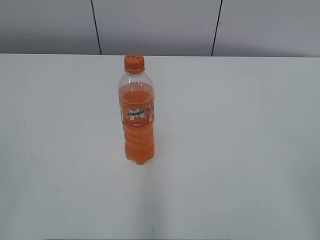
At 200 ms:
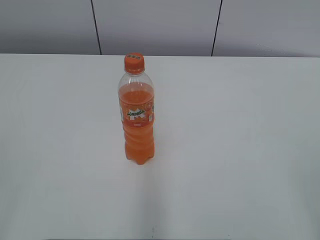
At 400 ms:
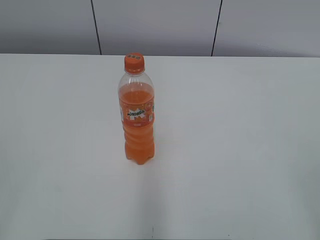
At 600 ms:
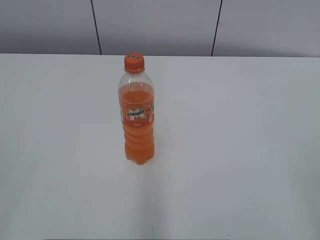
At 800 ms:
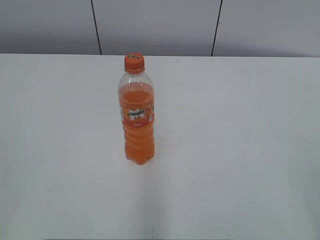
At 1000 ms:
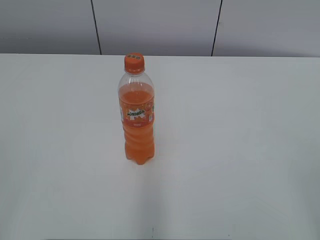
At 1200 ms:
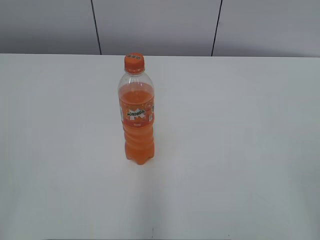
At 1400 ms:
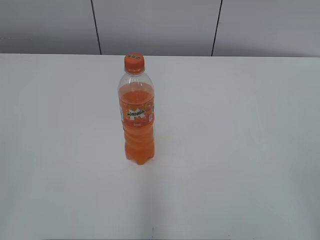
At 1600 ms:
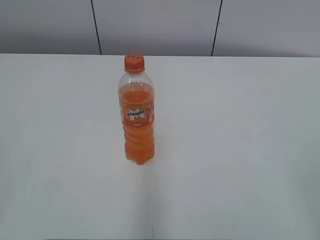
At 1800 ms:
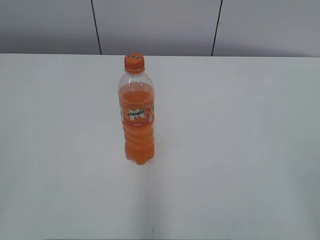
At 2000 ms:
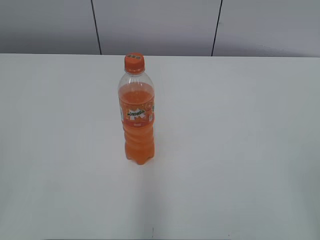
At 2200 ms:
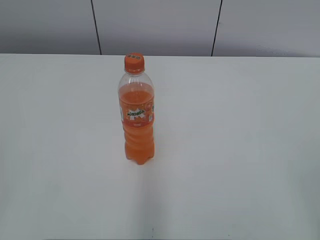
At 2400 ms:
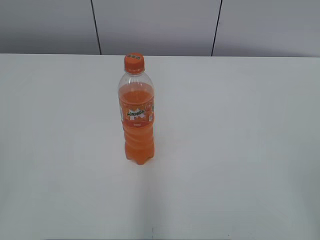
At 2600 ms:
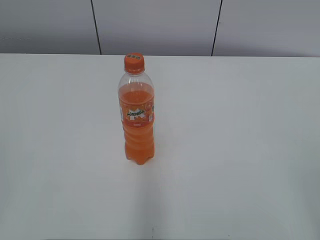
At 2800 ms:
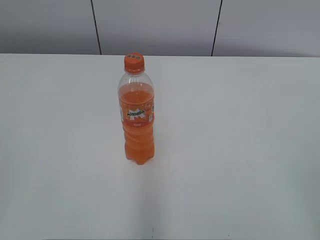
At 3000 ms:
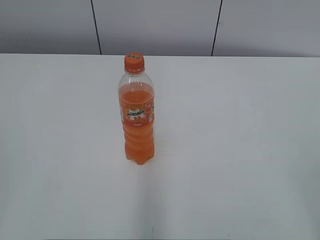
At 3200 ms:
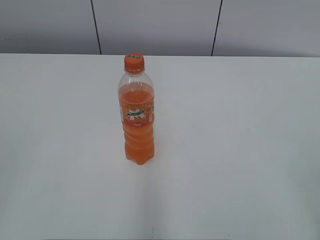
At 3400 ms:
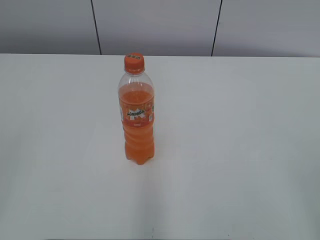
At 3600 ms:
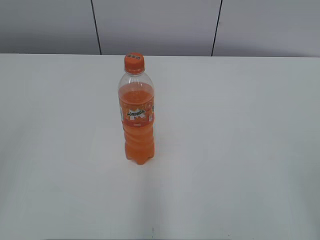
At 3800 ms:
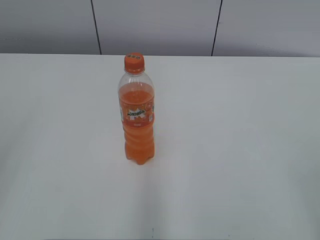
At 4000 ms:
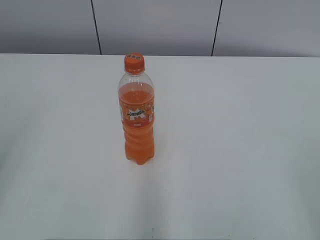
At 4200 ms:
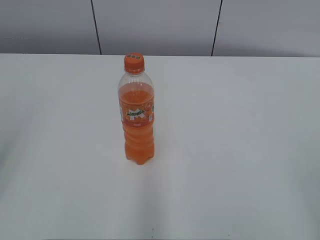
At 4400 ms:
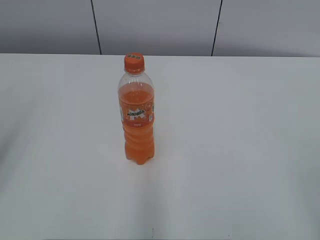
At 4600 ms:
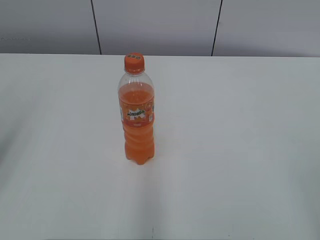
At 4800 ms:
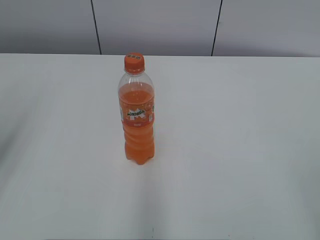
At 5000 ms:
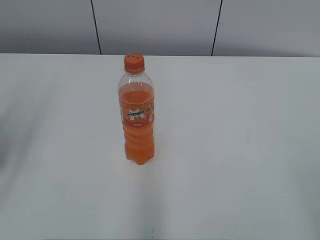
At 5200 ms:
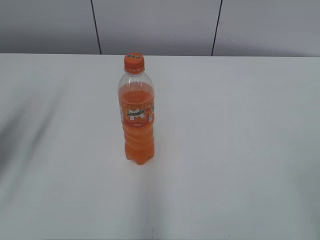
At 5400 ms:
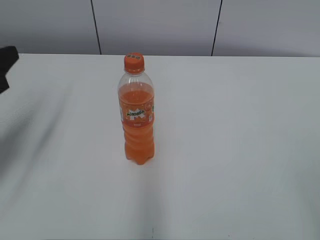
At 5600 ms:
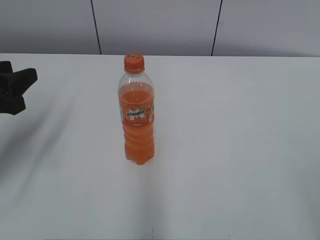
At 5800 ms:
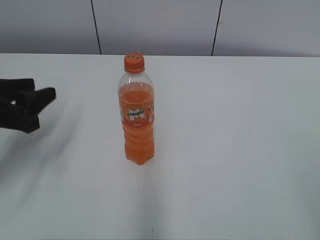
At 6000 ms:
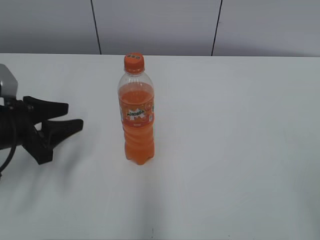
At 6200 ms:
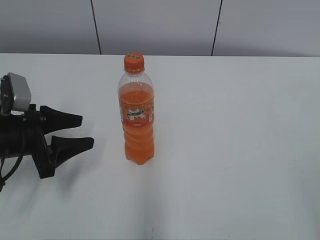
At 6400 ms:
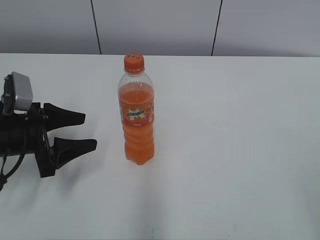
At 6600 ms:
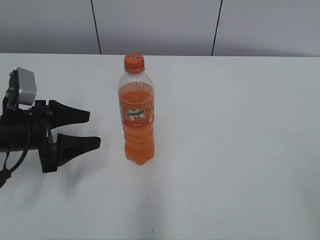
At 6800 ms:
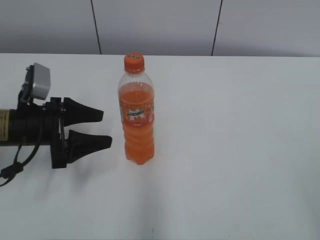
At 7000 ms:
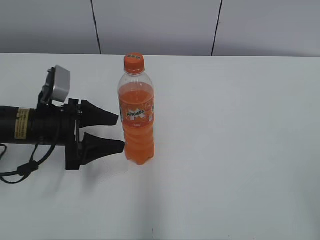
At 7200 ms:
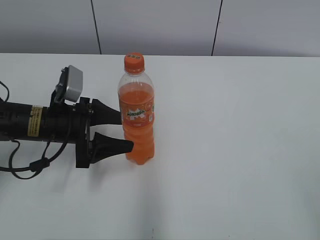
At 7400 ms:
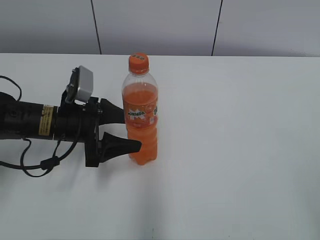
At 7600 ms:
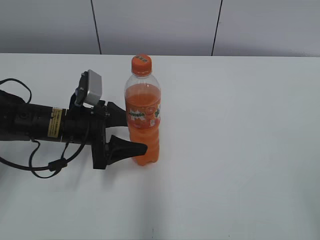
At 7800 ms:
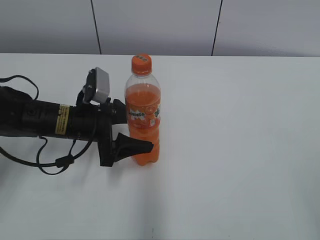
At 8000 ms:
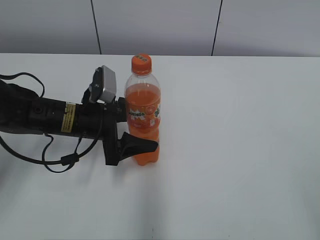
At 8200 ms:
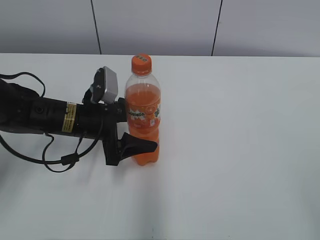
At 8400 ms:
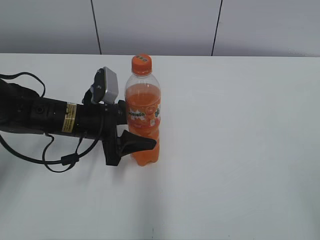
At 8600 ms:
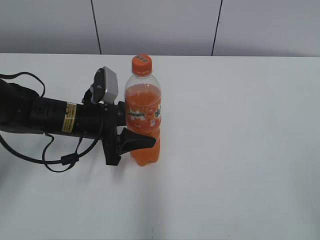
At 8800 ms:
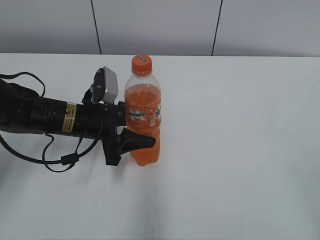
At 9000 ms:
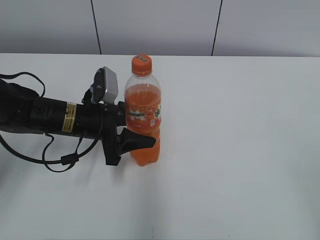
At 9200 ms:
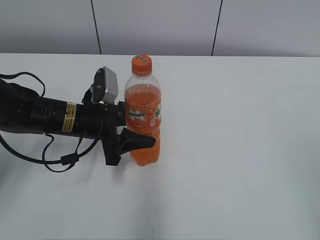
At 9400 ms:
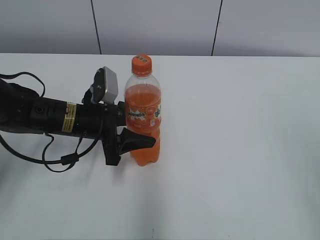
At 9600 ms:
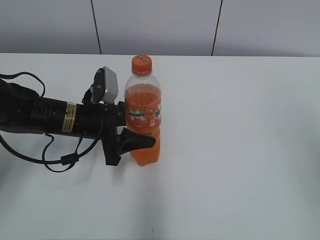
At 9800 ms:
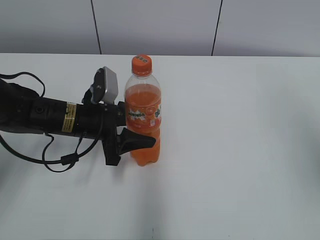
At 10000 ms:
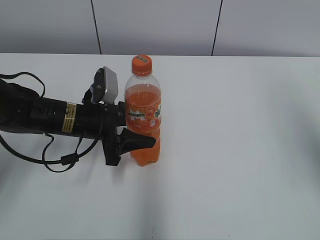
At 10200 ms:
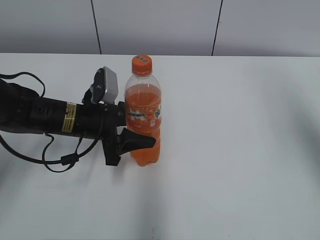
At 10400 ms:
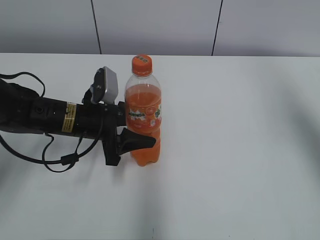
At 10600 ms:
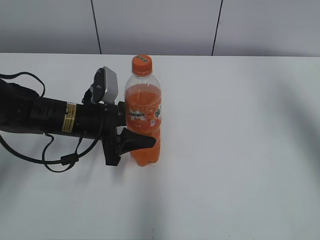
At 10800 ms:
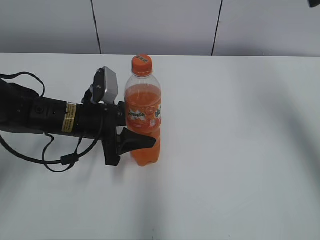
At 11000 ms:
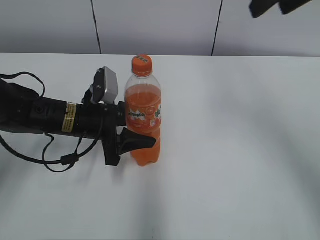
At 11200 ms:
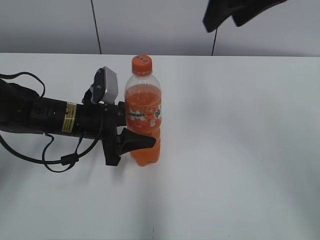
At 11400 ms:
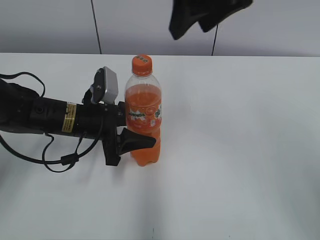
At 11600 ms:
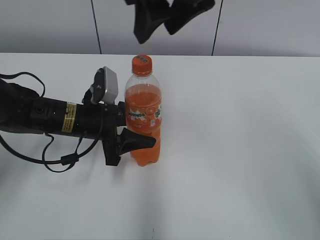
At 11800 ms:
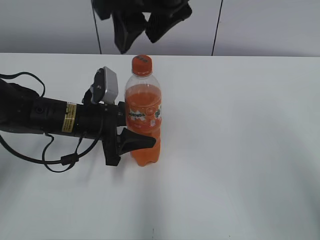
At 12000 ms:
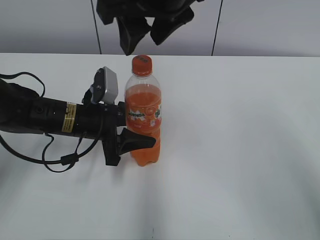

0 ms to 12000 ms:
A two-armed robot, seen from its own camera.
Step, 0 ms to 8400 ms: Grab the Mirinda with the left hand.
4400 ms to 6000 ms: The left gripper shifts about 20 cm downward and forward.
6000 ms to 7600 ms: The left gripper is displaced to the right and forward by some 10 cm, and opens.
7600 ms to 9000 ms: The left gripper closes.
9000 ms to 10400 ms: The right gripper is displaced forward by about 30 cm, and closes up.
10400 ms to 12000 ms: The right gripper heads to the left, covering approximately 30 cm.

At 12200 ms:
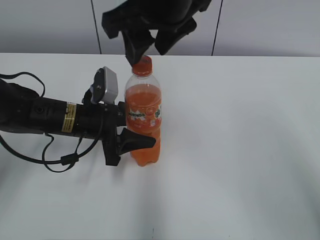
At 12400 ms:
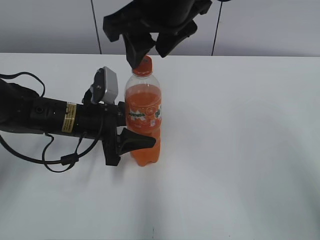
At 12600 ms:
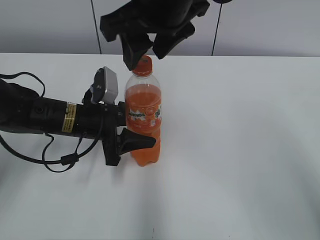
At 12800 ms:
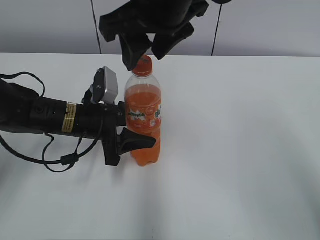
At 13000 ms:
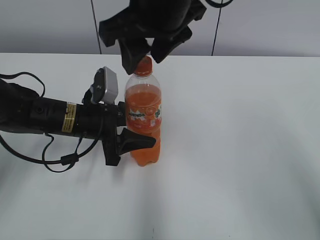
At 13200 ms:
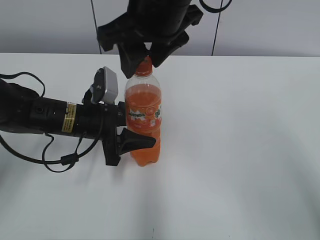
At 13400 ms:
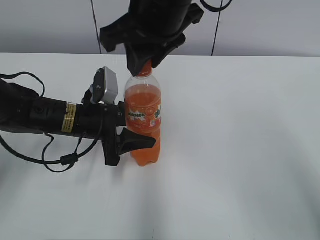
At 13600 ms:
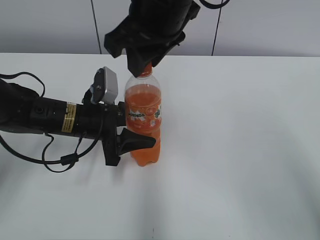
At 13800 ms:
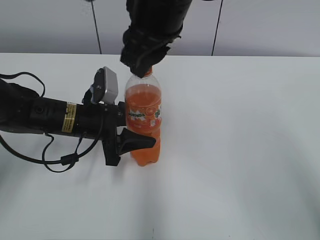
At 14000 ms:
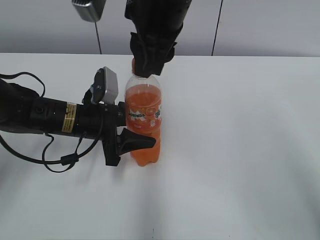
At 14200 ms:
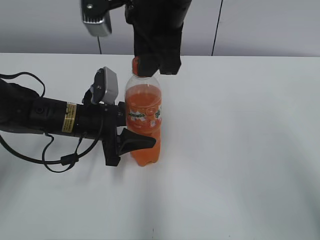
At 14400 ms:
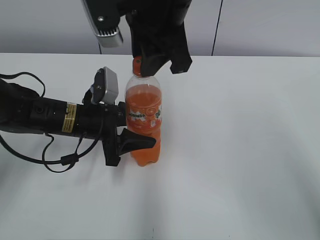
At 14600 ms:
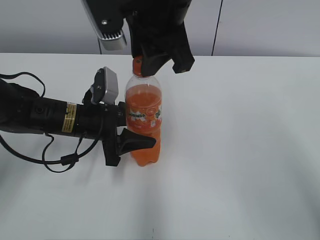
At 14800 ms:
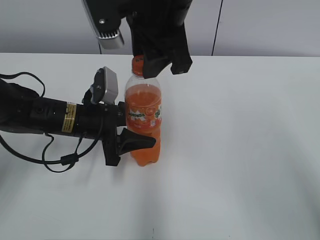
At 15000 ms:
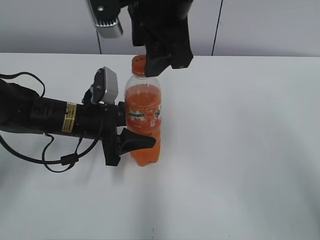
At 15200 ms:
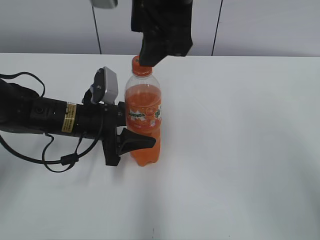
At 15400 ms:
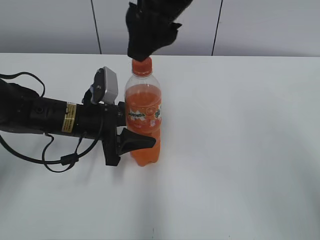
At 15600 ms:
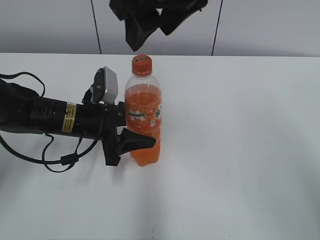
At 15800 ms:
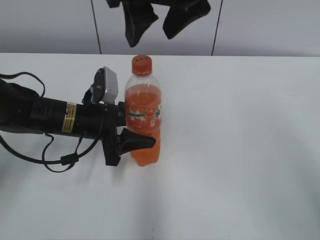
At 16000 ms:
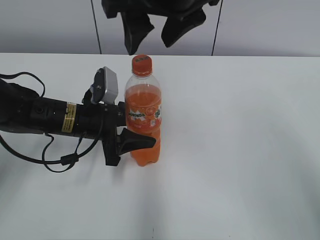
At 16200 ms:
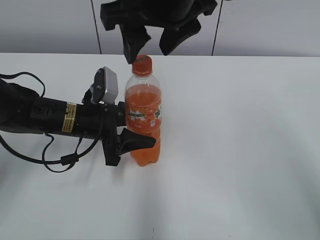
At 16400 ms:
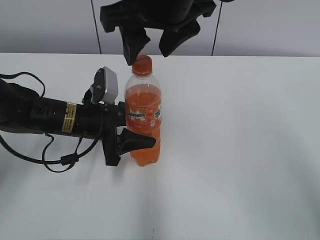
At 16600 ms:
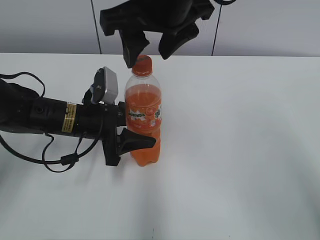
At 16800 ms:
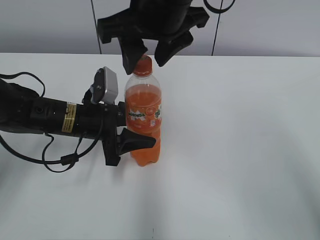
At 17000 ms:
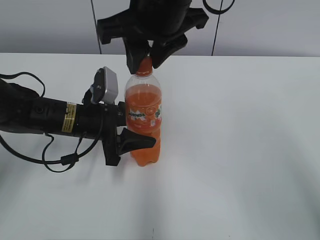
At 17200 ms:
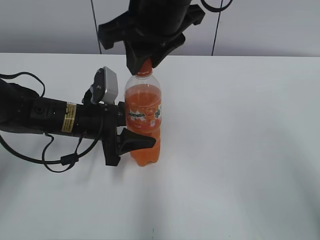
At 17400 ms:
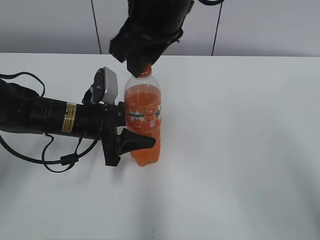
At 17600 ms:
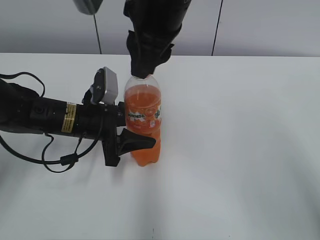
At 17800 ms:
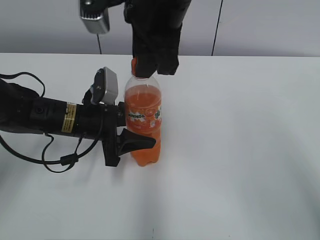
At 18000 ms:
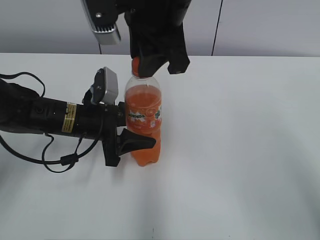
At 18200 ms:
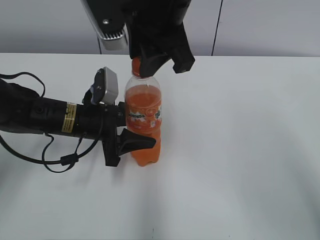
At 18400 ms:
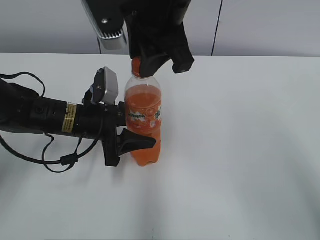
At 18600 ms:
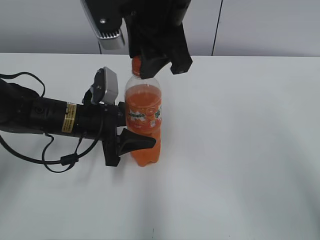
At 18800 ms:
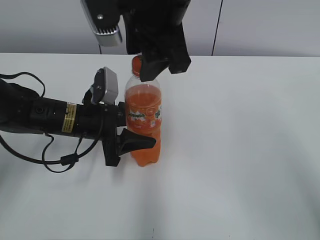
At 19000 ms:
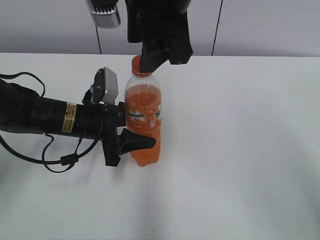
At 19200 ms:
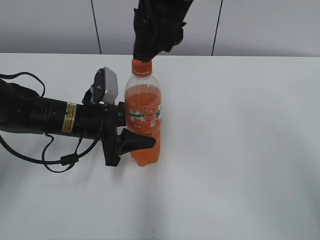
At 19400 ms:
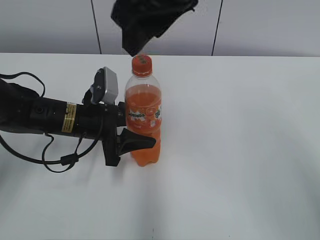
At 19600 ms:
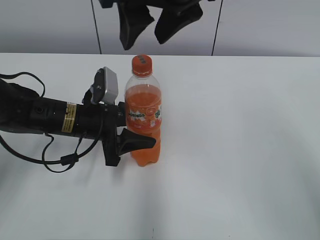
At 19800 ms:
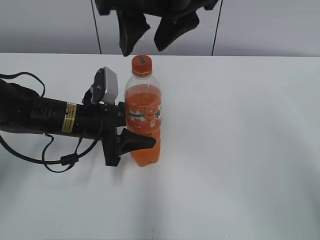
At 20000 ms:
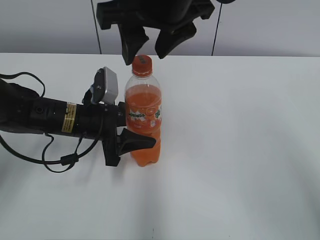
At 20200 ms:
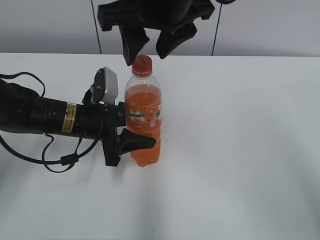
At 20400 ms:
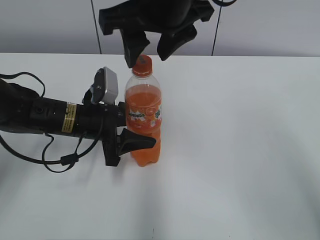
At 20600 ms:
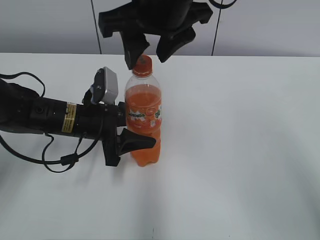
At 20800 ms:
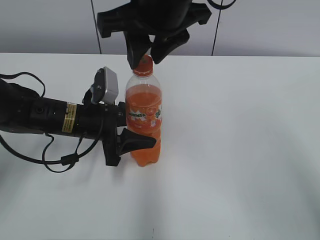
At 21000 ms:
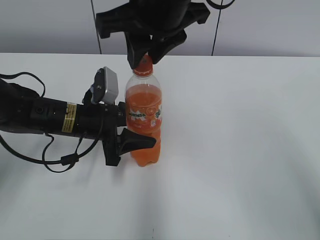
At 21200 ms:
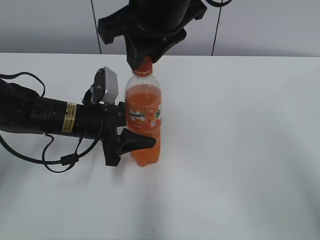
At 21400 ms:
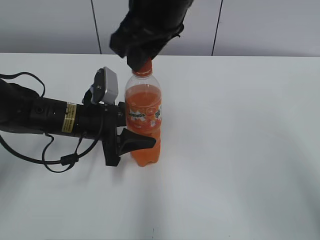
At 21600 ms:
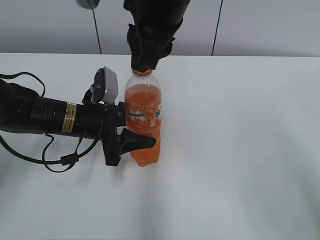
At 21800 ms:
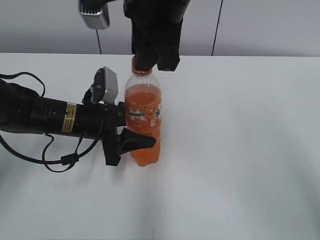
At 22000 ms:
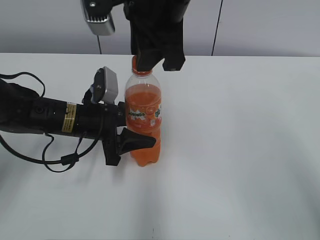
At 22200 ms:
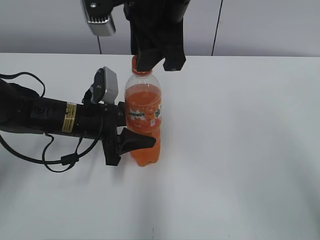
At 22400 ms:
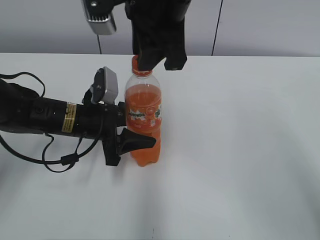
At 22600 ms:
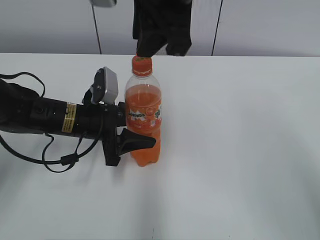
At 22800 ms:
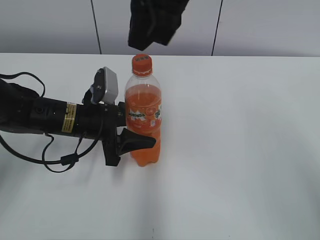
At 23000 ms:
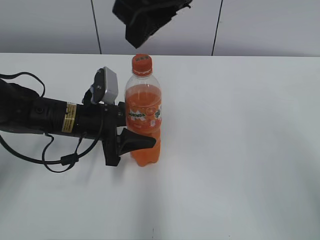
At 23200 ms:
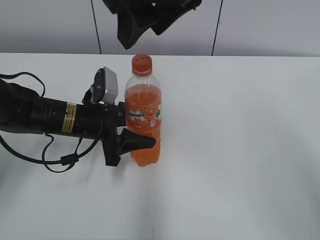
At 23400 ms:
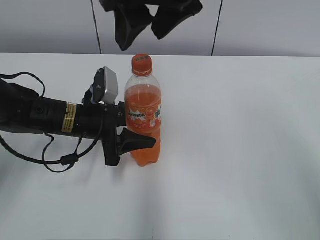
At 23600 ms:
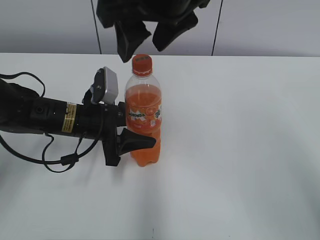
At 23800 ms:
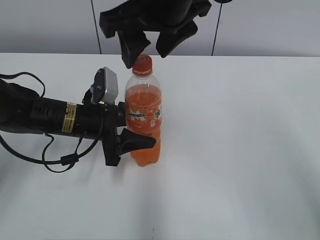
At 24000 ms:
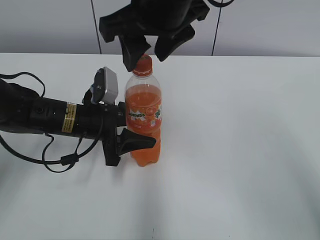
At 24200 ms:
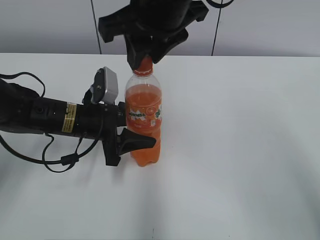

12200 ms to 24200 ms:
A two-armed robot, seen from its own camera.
12200 ms to 13800 ms: The right gripper closes its fingers.
13800 ms to 15200 ms: The right gripper opens its fingers.
16600 ms to 18200 ms: The right gripper closes up.
18200 ms to 19800 ms: The right gripper opens.
19800 ms to 21200 ms: The right gripper closes.
22600 ms to 24200 ms: The right gripper opens, then closes once more.
